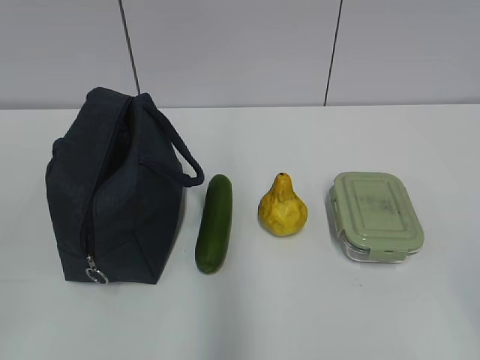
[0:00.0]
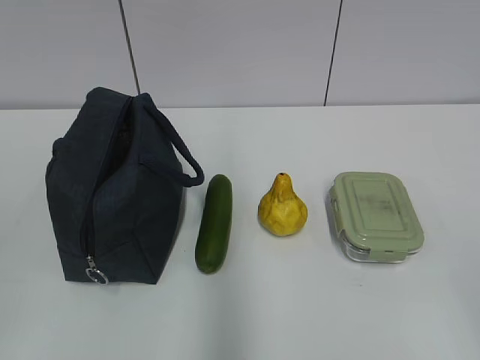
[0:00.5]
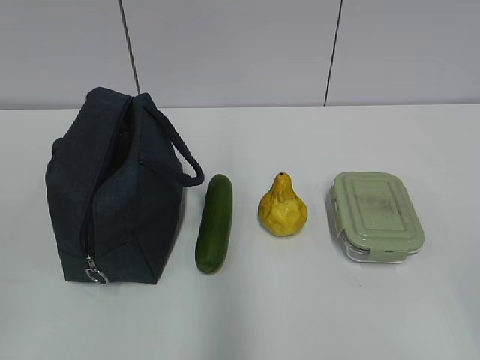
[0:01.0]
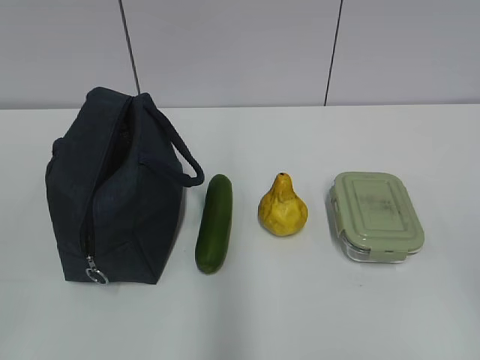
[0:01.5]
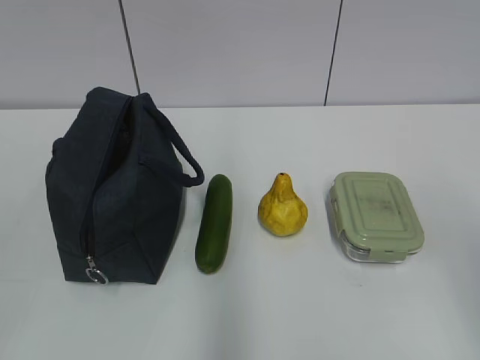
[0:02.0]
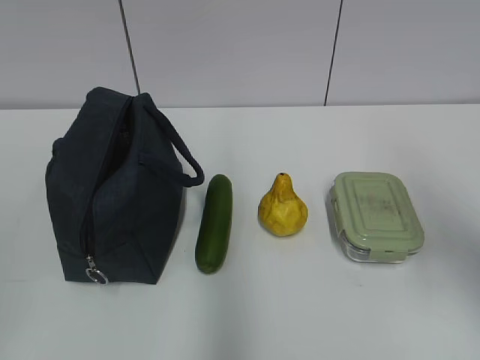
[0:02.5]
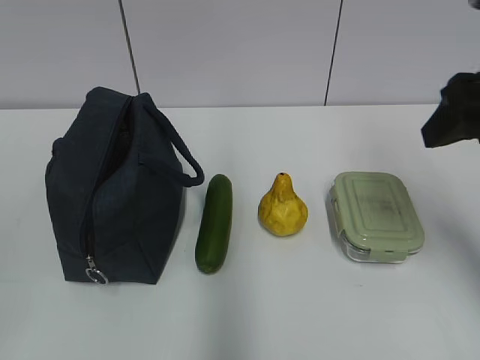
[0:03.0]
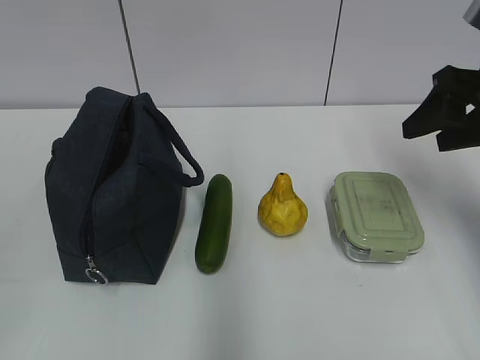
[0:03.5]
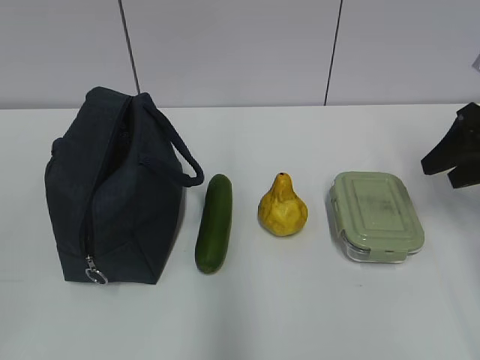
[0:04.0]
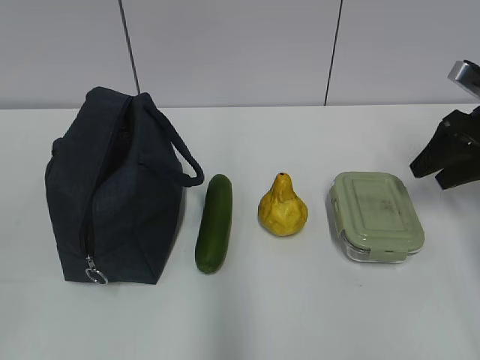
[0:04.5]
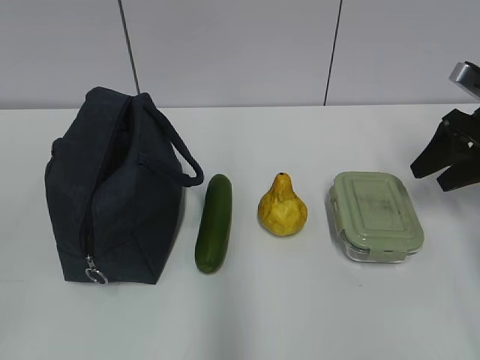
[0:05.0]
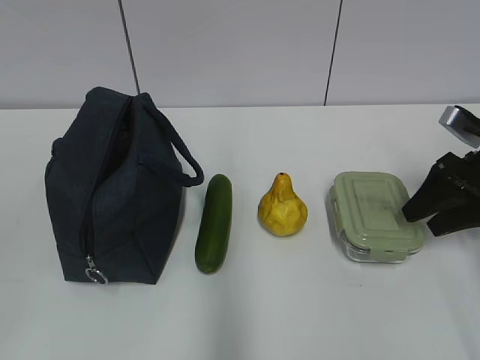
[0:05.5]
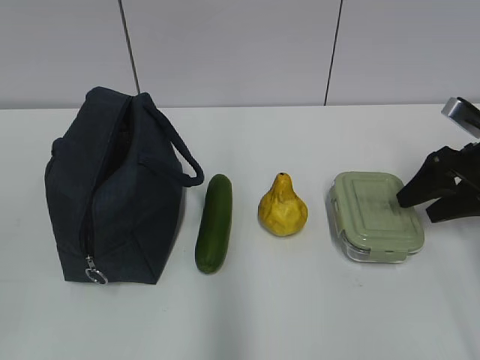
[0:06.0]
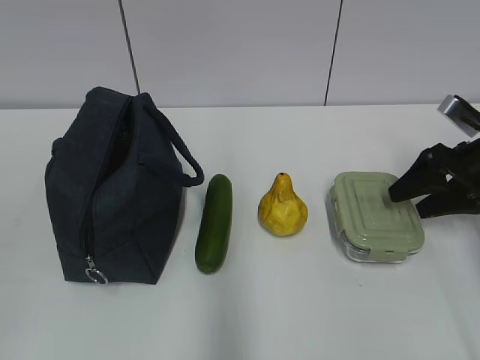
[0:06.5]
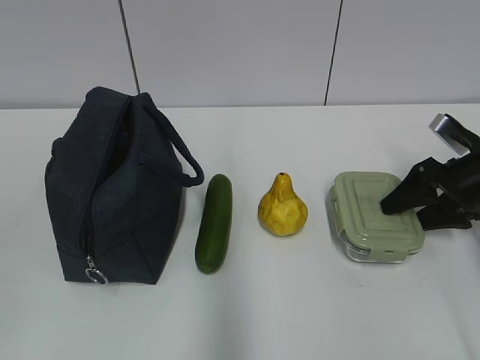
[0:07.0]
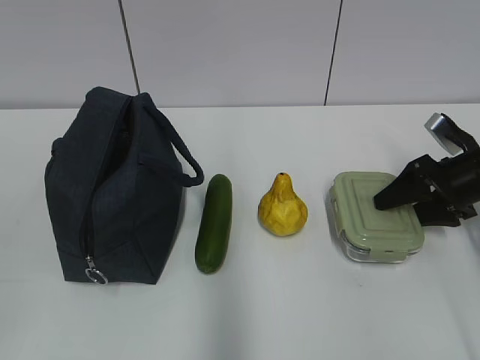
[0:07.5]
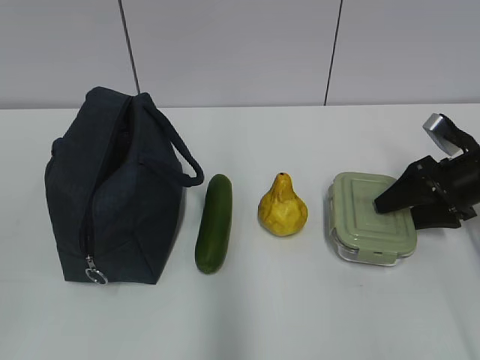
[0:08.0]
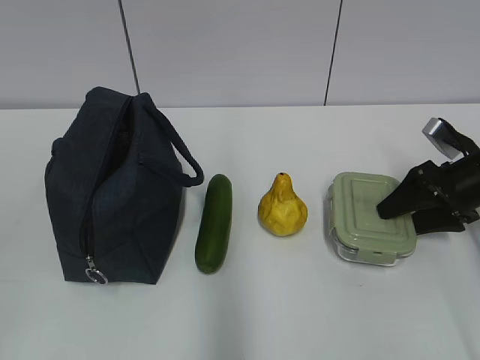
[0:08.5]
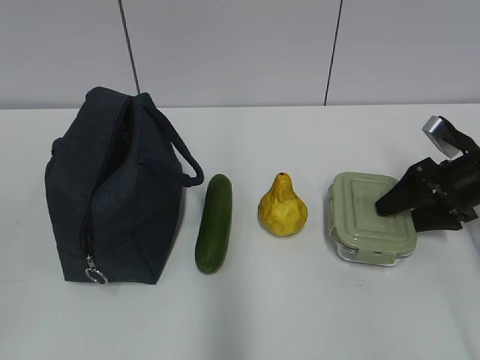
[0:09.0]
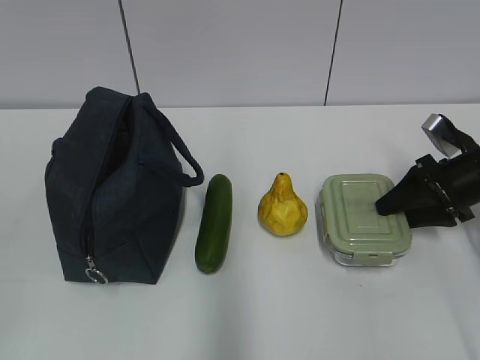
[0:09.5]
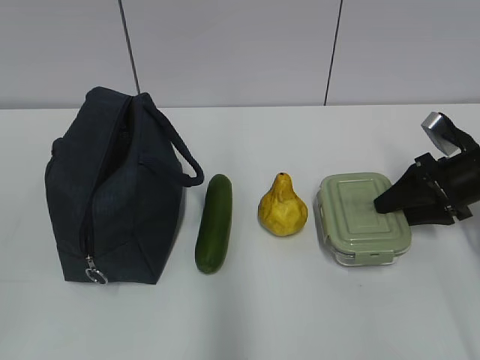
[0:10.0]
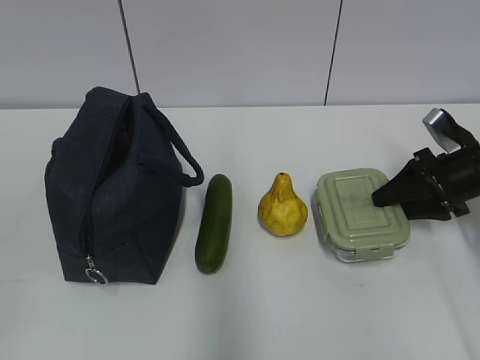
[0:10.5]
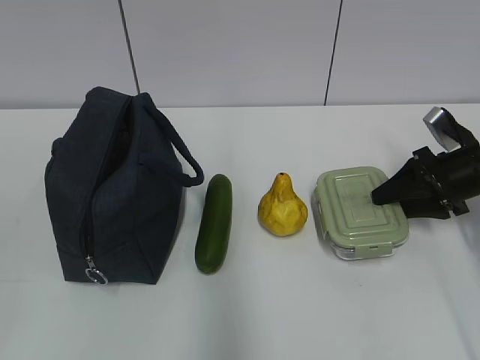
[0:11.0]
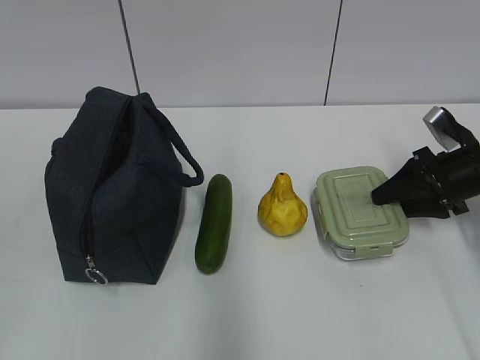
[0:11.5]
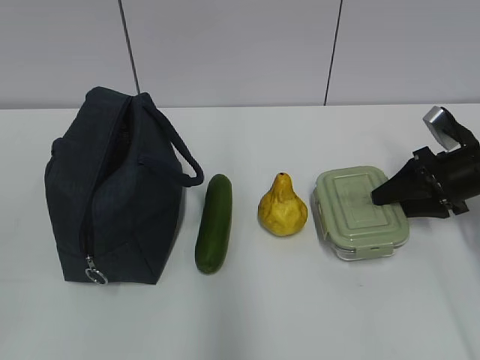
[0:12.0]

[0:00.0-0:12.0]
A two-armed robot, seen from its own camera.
0:02.0 to 0:04.0: The right gripper goes approximately 25 cm forward.
0:04.0 to 0:06.0: The right gripper is displaced downward by some 5 cm.
0:06.0 to 0:08.0: There are only small adjustments of the grippers.
0:08.0 to 0:12.0: The two grippers keep their place.

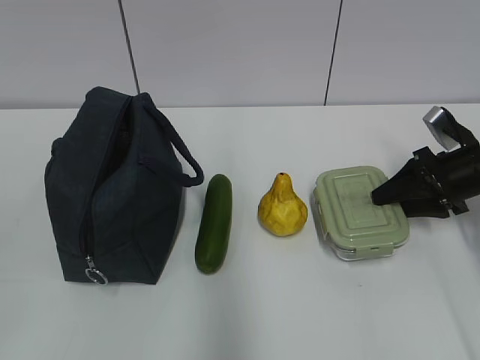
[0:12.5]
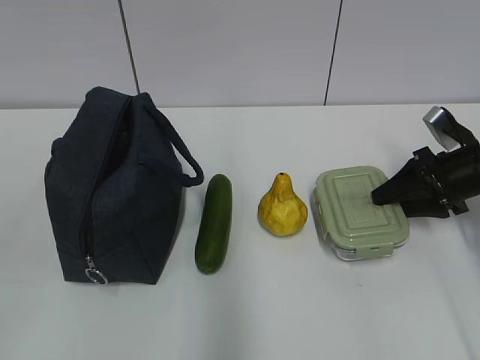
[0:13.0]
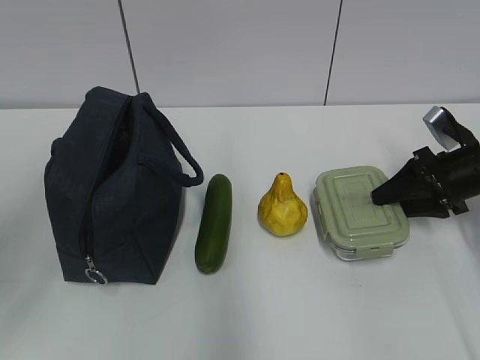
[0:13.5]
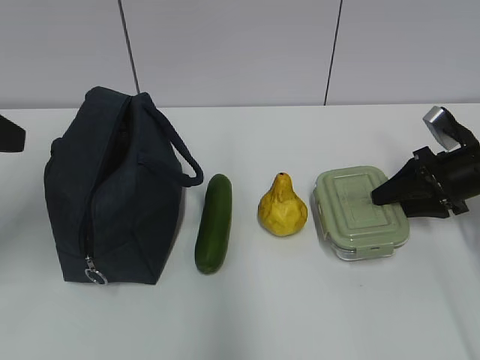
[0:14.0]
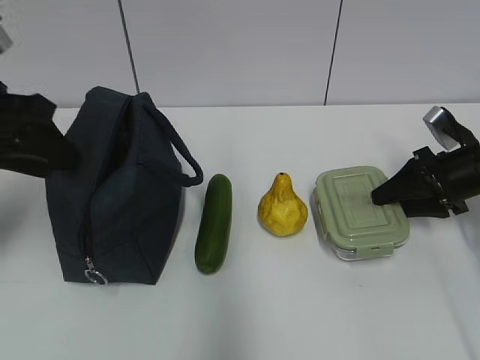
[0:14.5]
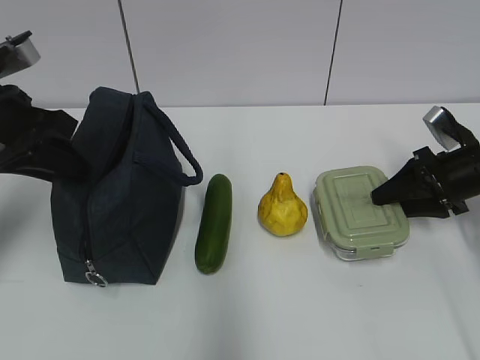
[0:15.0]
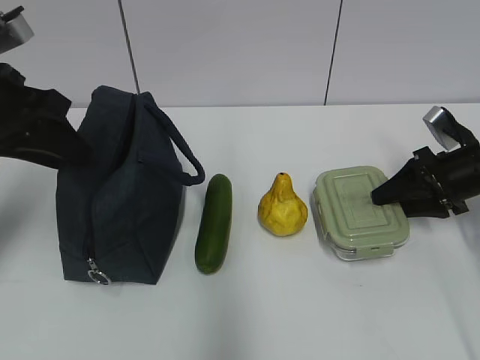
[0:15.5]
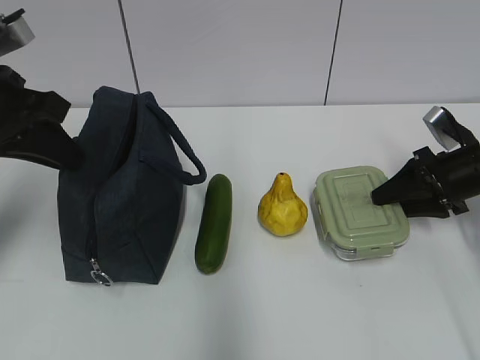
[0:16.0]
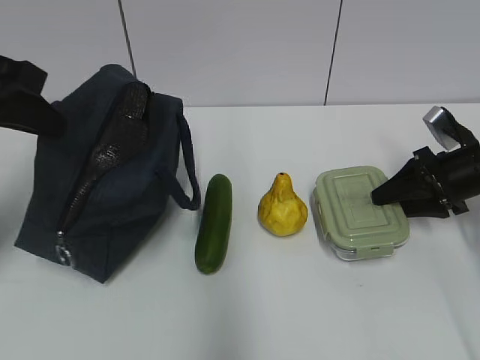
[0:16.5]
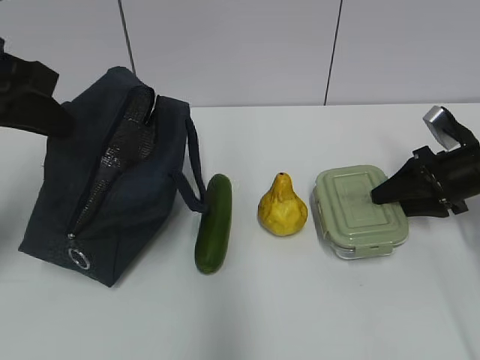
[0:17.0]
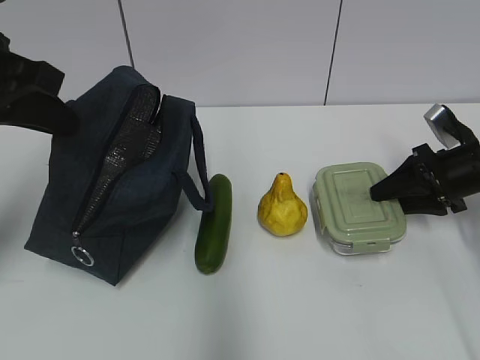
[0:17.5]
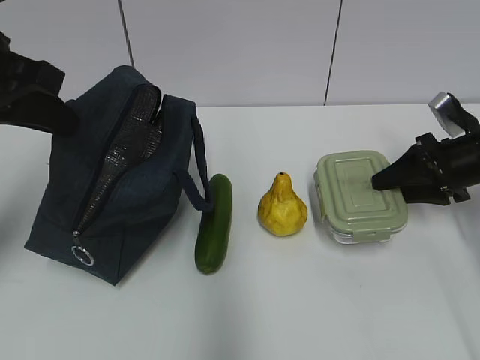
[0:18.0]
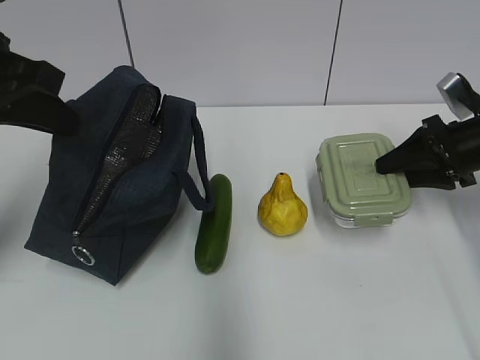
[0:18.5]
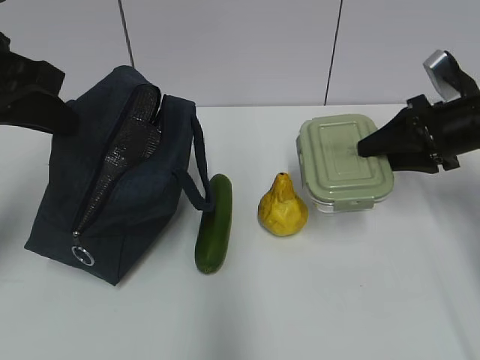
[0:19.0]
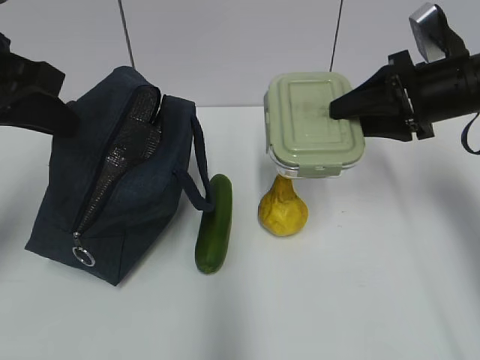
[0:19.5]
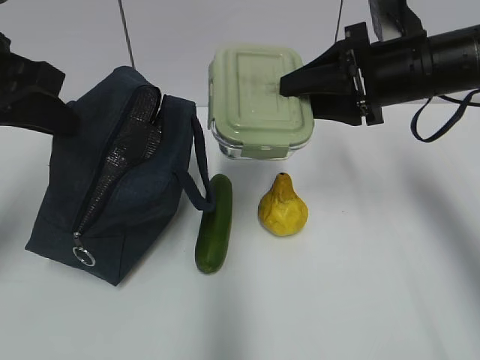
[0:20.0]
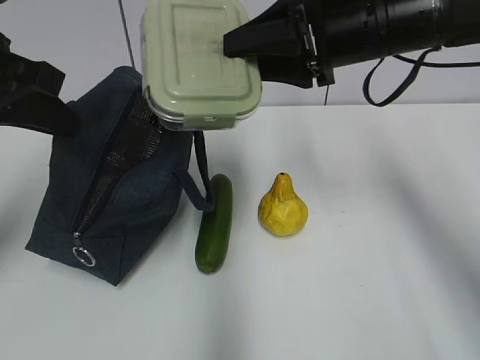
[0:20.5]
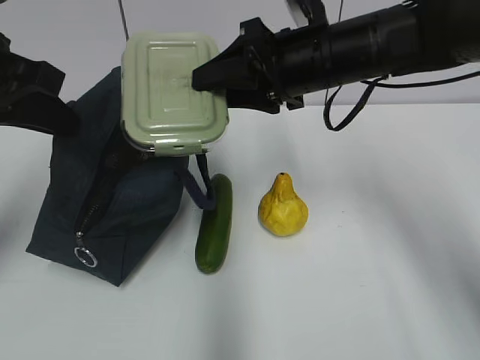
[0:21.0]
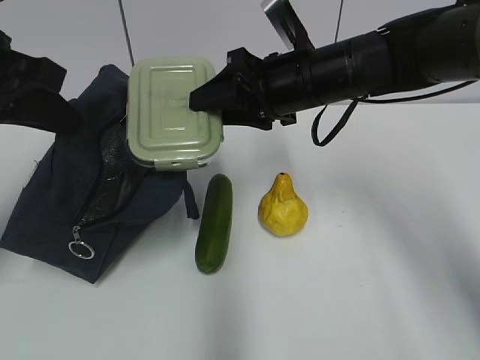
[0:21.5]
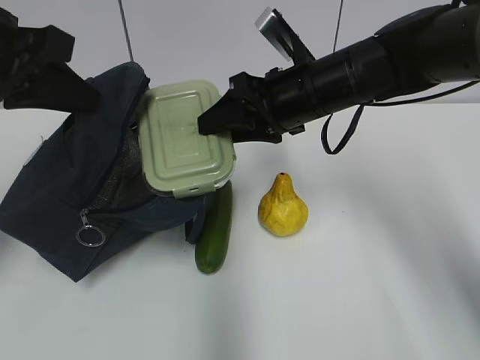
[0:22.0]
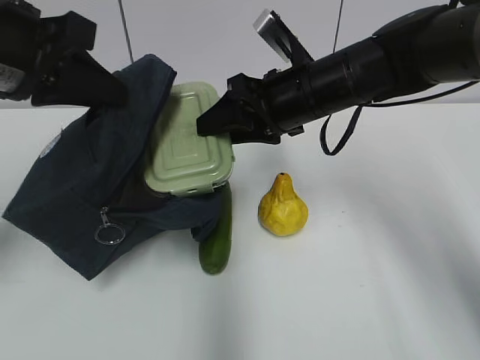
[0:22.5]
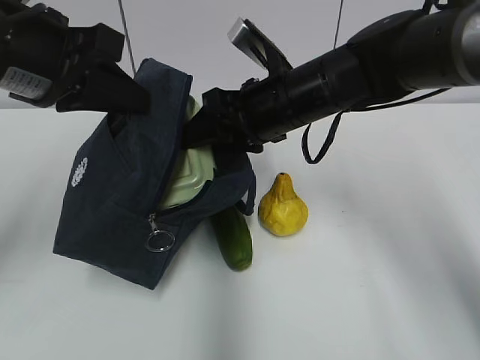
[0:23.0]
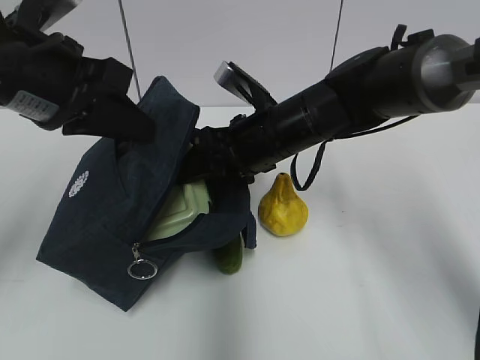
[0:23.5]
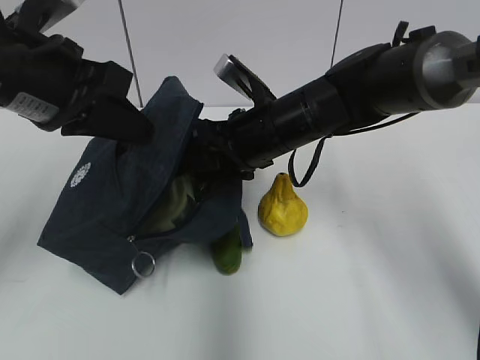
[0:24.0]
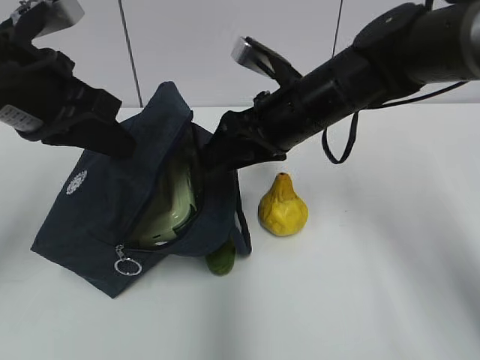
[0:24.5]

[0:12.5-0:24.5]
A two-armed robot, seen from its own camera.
0:12.5 to 0:14.5: The left gripper heads forward, covering approximately 30 cm.
0:14.5 to 0:16.5: The left gripper closes its fingers.
0:16.5 to 0:18.5: The grippers move only a little.
0:18.5 to 0:20.5: The right gripper moves to the left and upward, approximately 25 cm.
0:20.5 to 0:22.5: The right gripper moves downward, some 5 cm.

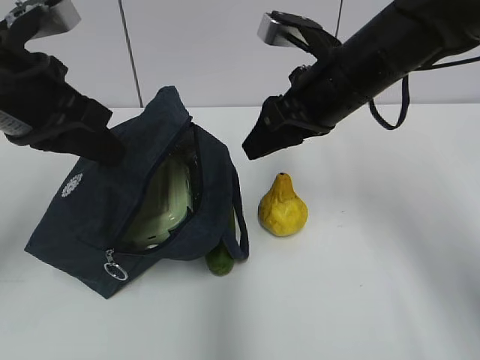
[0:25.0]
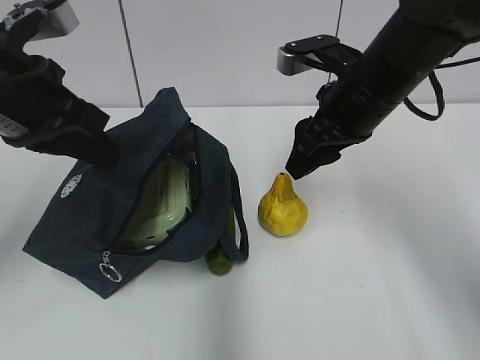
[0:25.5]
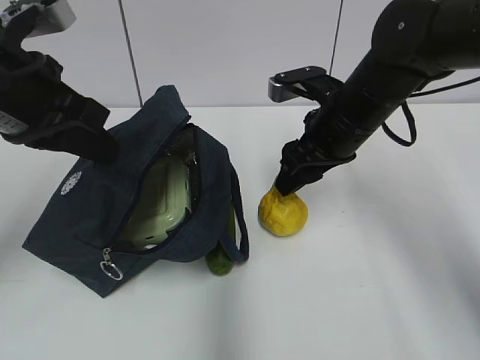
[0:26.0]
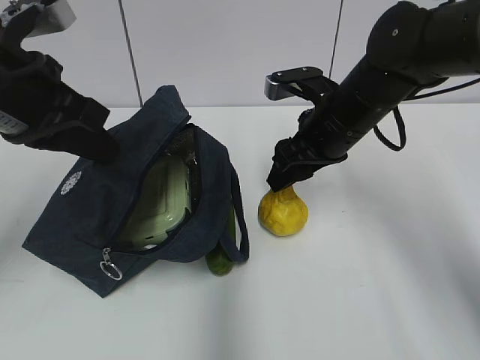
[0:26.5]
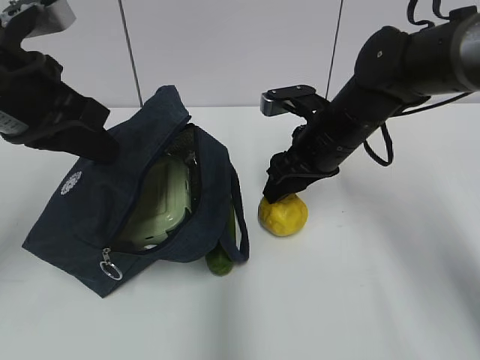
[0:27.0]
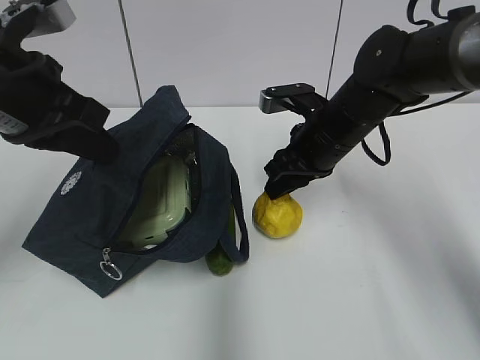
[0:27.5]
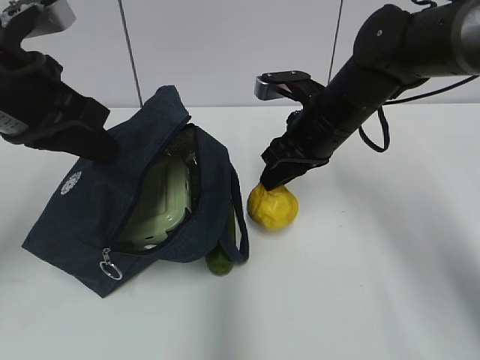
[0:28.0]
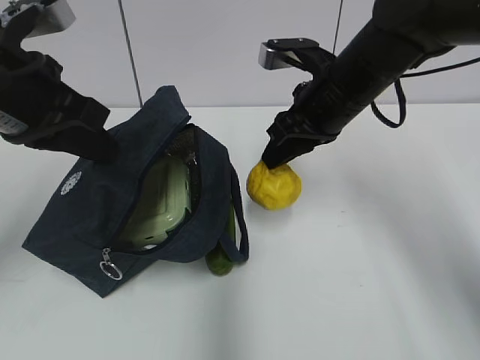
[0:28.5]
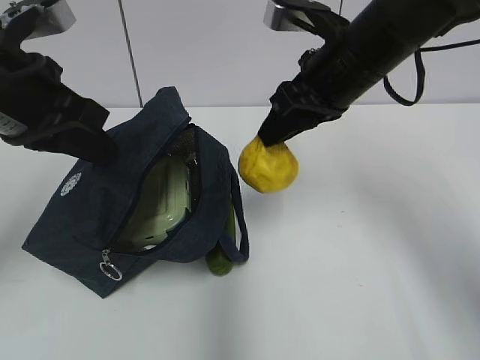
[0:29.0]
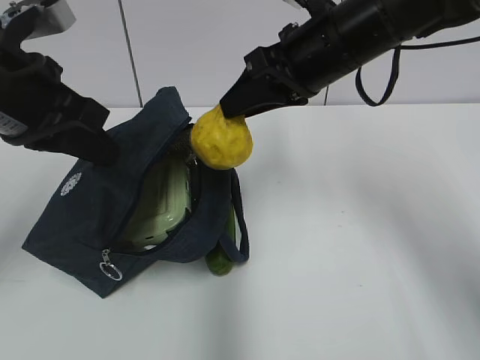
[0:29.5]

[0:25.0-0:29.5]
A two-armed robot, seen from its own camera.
0:25.0 to 0:27.0: The right gripper travels downward by about 10 cm.
0:27.0 to 0:29.5: The right gripper goes roughly 10 cm upward.
